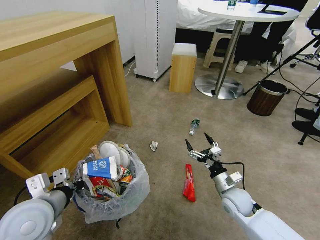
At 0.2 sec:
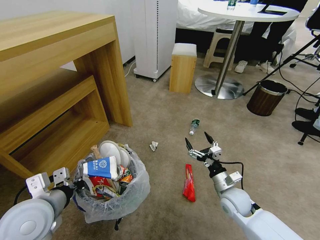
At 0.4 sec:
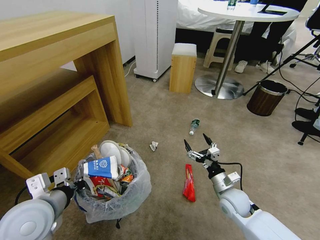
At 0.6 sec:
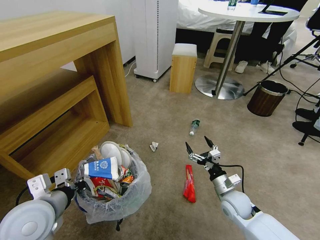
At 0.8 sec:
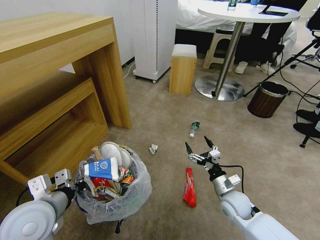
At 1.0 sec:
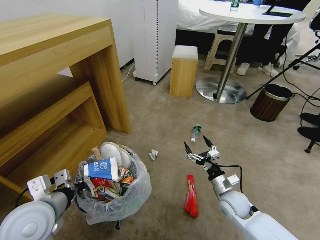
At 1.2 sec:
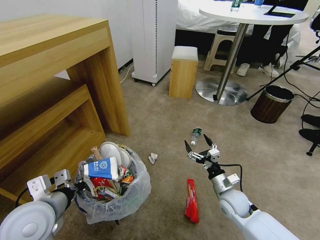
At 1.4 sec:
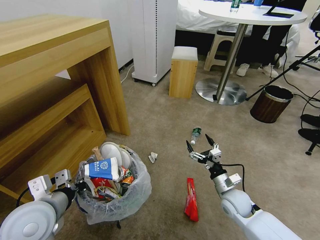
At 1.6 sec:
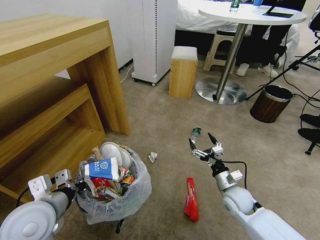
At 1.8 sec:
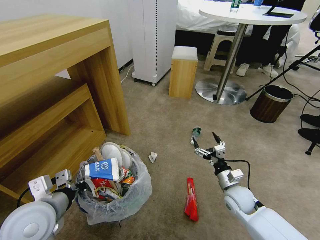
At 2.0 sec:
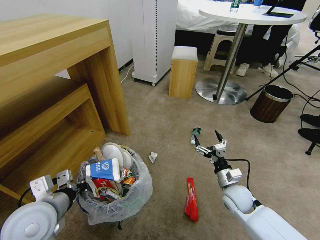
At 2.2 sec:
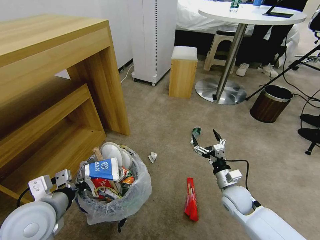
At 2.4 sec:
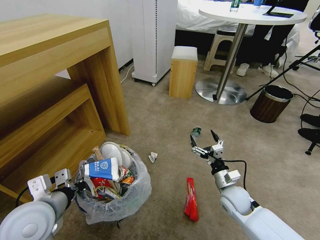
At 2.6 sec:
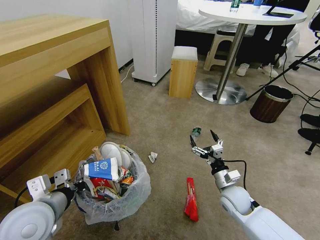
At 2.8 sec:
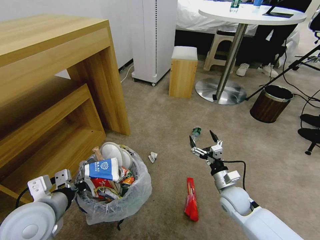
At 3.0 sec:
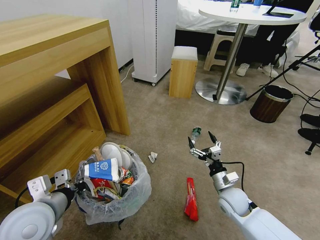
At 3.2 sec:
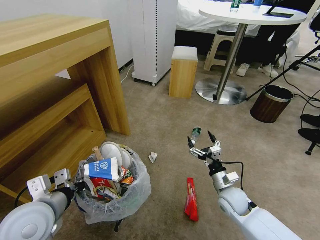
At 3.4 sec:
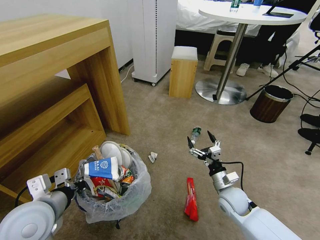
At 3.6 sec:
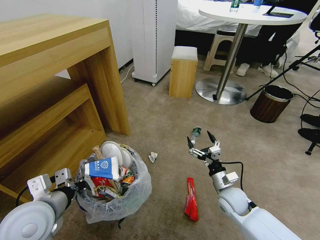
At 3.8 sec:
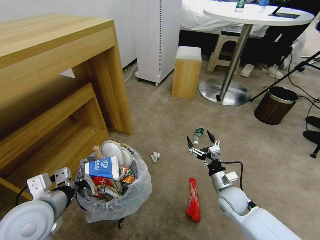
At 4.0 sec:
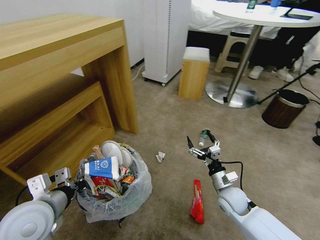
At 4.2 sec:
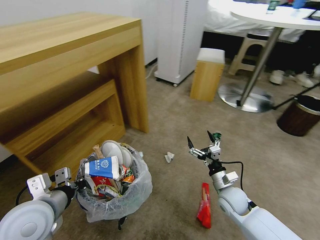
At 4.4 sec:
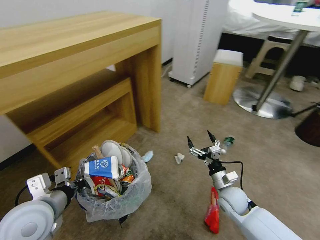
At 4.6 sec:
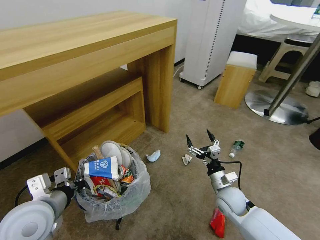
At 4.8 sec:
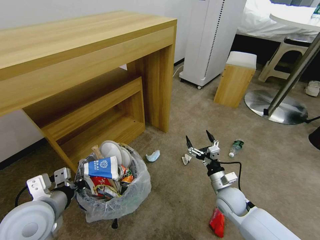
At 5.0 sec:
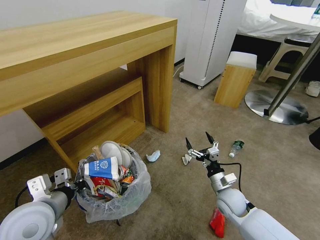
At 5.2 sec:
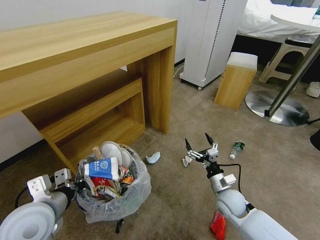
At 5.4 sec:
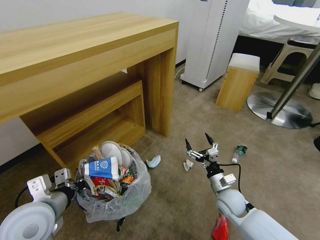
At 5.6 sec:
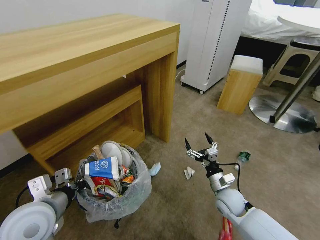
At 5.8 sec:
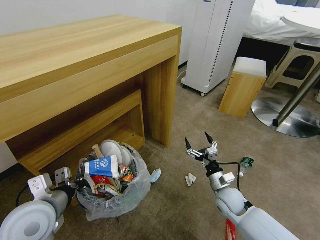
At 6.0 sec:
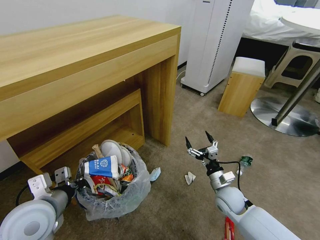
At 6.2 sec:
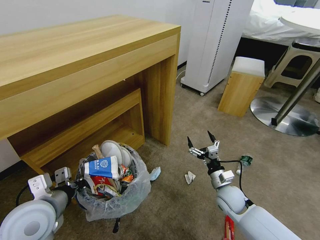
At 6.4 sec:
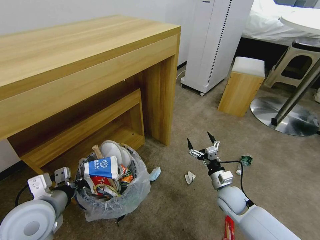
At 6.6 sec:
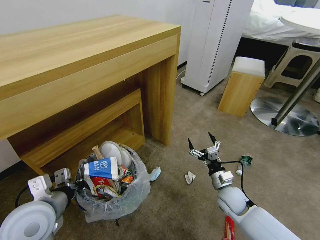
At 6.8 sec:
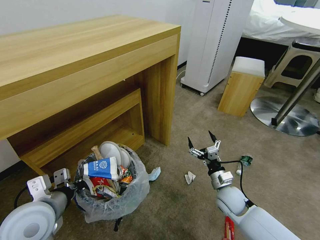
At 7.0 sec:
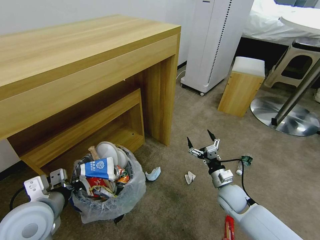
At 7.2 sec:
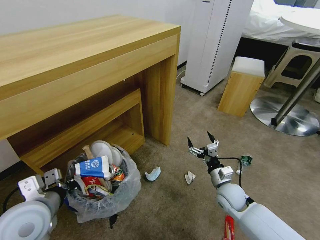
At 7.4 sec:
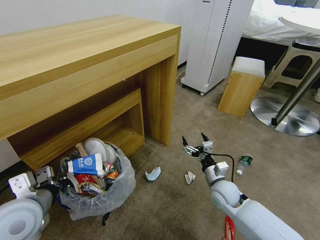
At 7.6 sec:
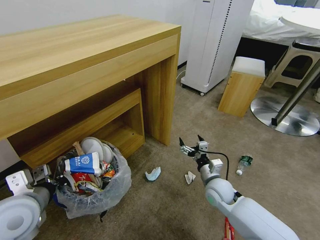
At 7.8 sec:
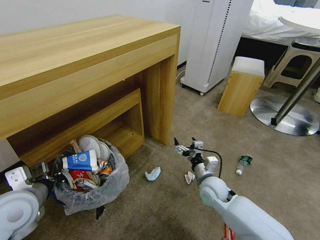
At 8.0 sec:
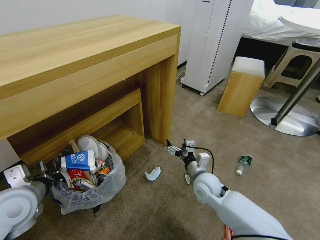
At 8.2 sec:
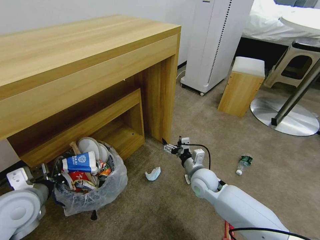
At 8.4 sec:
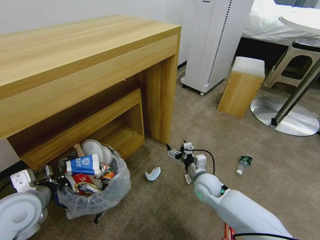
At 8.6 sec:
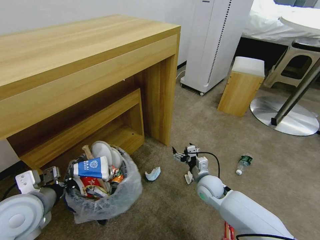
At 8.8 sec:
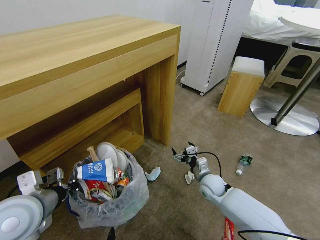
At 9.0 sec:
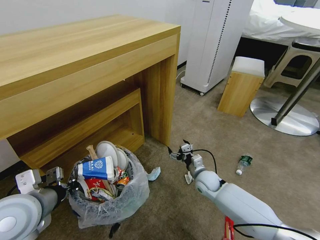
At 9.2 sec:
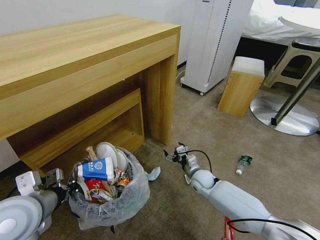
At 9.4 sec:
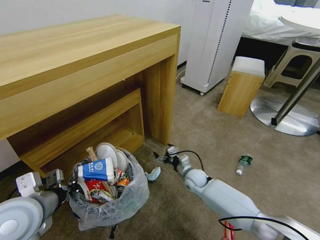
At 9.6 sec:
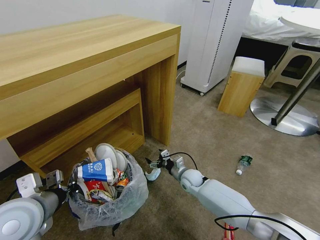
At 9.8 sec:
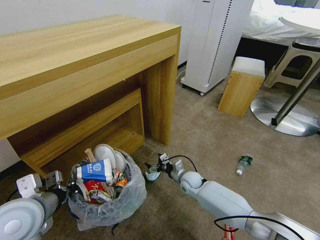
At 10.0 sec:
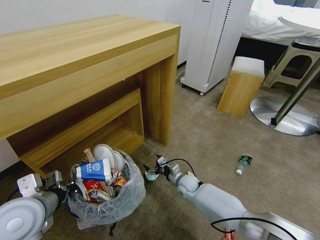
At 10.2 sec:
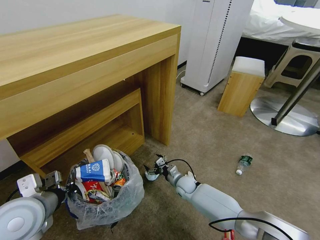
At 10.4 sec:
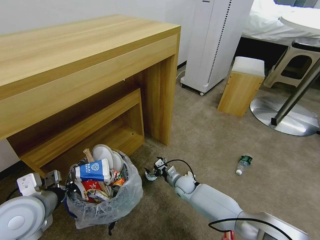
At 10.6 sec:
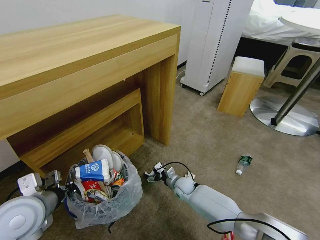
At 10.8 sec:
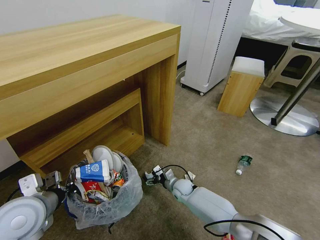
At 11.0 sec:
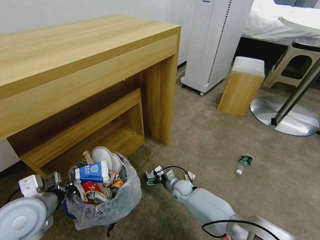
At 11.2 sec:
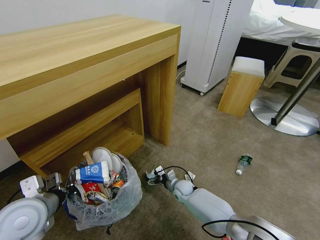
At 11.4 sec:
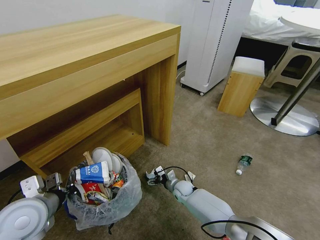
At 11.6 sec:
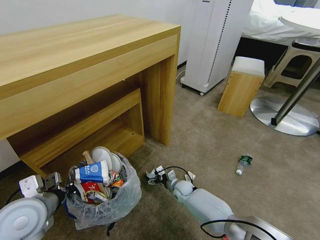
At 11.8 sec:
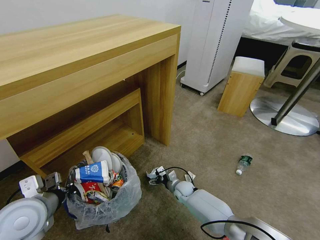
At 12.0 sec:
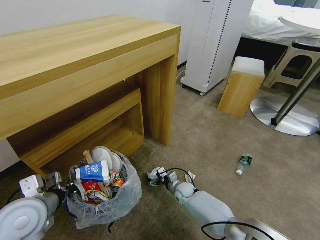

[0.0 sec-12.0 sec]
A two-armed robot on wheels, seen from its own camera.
Task of the whole recording: Pick up the trash bin and place the garbage on the floor into it.
1.6 sec to 3.0 sec: The grippers stay close to where they were, moving slightly.
6.0 sec to 7.6 sec: The grippers move only a little.
7.6 sec to 9.0 sec: The right gripper heads forward and downward, covering some 10 cm.
9.0 sec to 10.4 sec: The right gripper travels to the left and downward by about 10 cm.
10.4 sec to 12.0 sec: The right gripper changes place by some 5 cm.

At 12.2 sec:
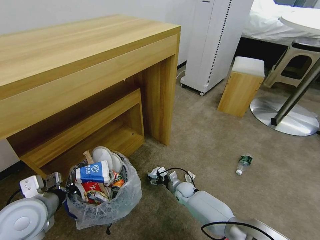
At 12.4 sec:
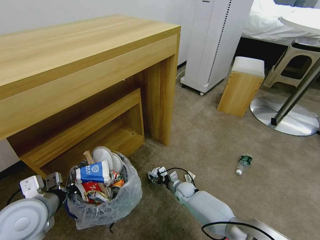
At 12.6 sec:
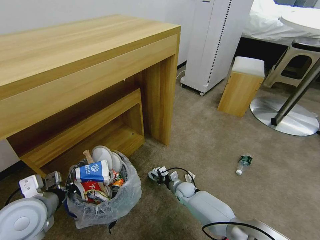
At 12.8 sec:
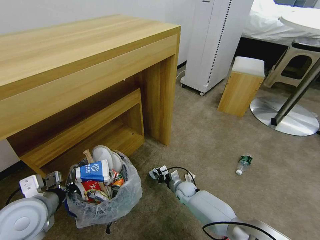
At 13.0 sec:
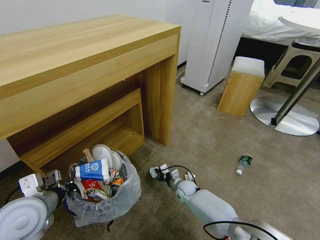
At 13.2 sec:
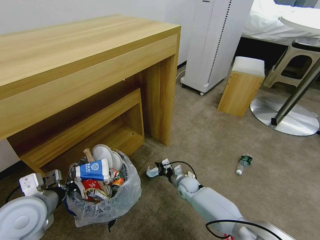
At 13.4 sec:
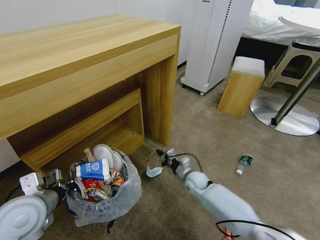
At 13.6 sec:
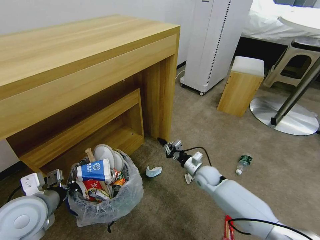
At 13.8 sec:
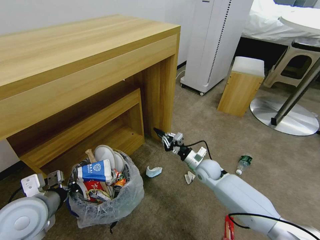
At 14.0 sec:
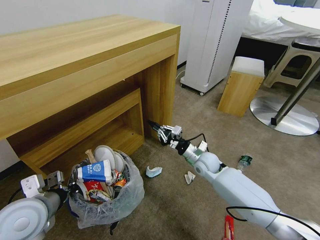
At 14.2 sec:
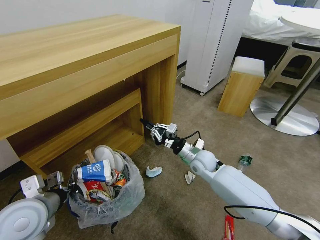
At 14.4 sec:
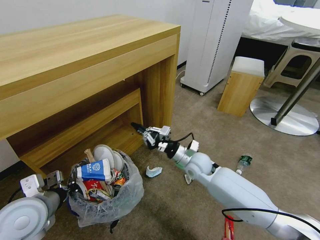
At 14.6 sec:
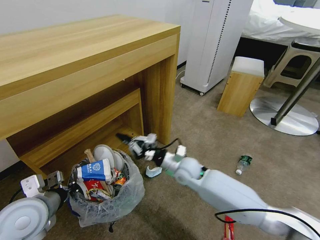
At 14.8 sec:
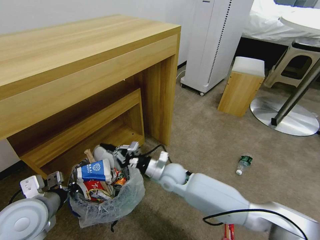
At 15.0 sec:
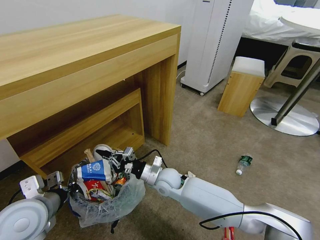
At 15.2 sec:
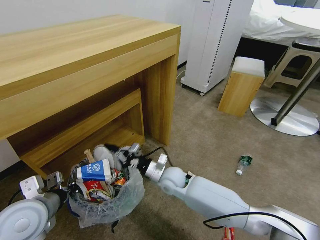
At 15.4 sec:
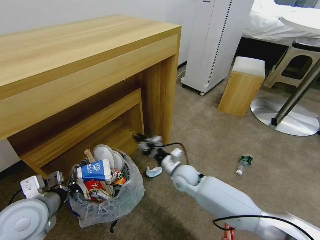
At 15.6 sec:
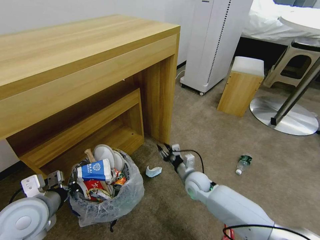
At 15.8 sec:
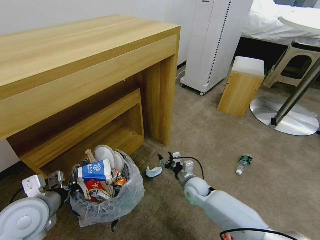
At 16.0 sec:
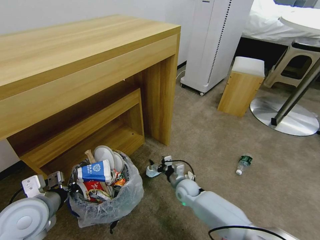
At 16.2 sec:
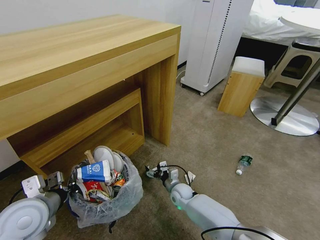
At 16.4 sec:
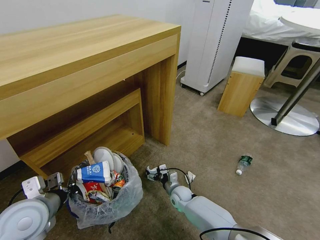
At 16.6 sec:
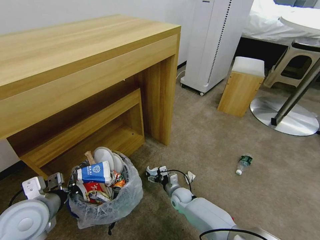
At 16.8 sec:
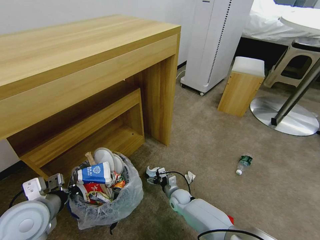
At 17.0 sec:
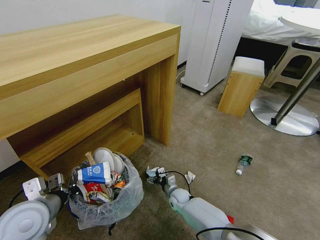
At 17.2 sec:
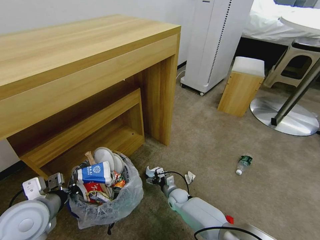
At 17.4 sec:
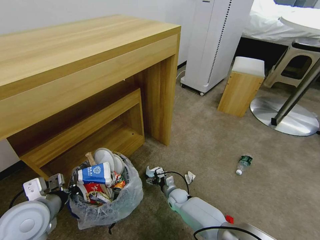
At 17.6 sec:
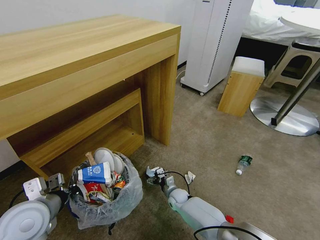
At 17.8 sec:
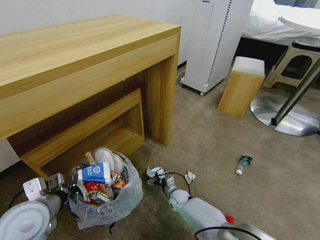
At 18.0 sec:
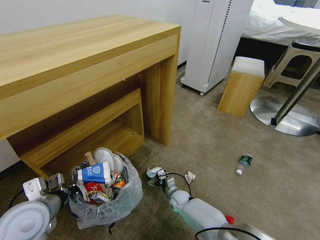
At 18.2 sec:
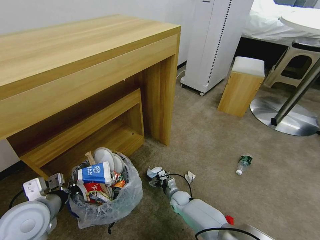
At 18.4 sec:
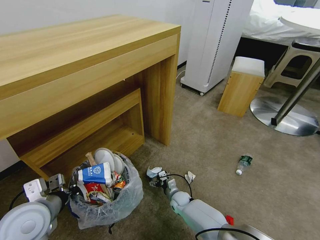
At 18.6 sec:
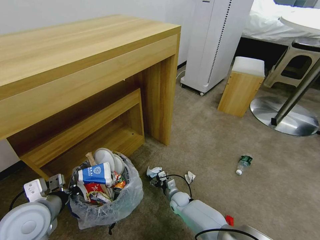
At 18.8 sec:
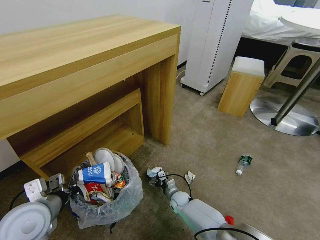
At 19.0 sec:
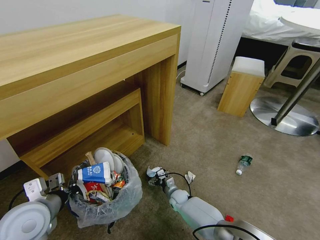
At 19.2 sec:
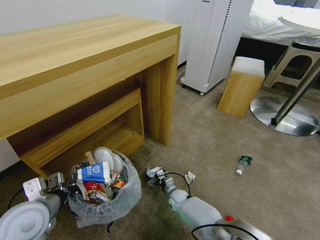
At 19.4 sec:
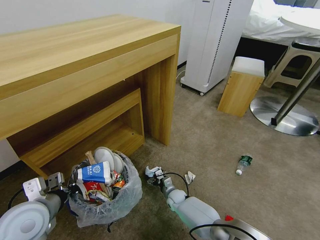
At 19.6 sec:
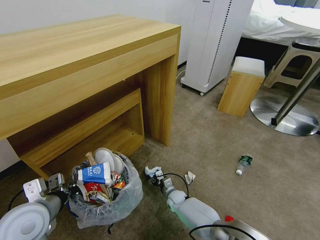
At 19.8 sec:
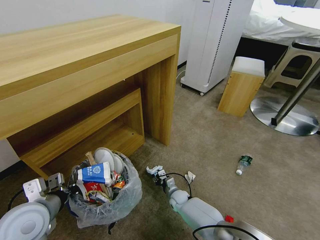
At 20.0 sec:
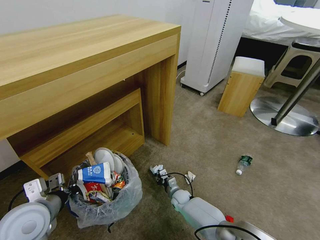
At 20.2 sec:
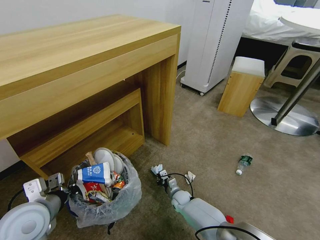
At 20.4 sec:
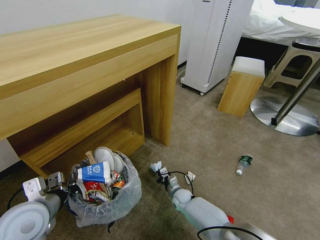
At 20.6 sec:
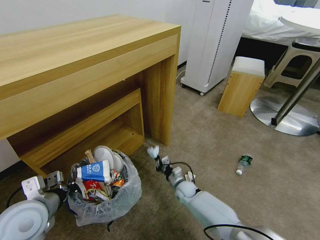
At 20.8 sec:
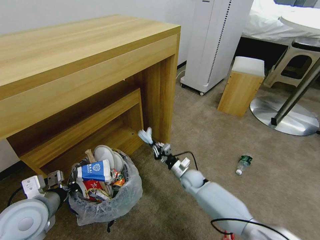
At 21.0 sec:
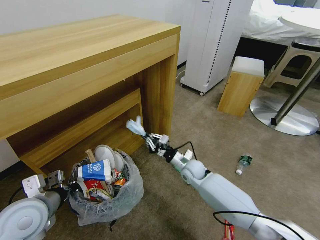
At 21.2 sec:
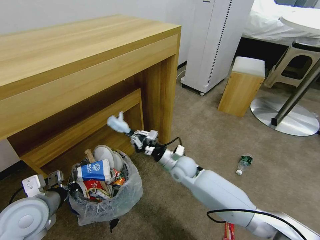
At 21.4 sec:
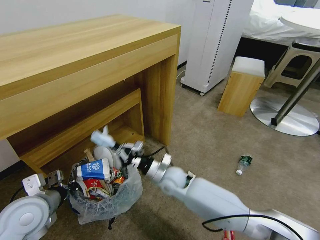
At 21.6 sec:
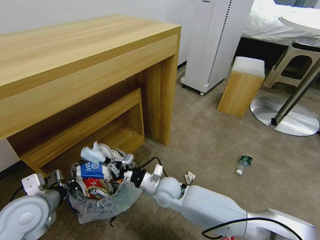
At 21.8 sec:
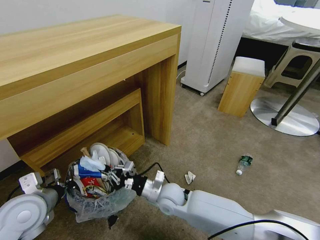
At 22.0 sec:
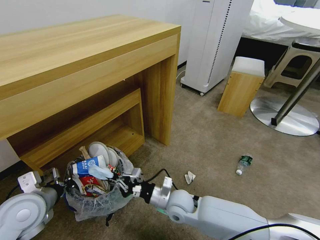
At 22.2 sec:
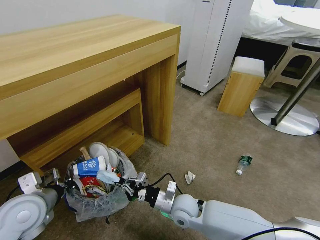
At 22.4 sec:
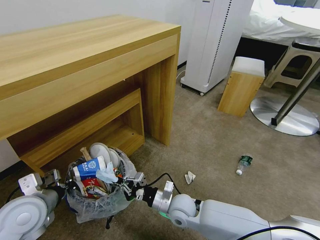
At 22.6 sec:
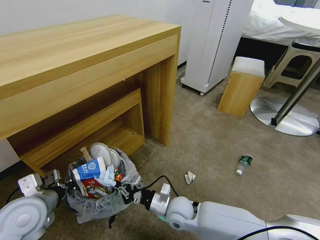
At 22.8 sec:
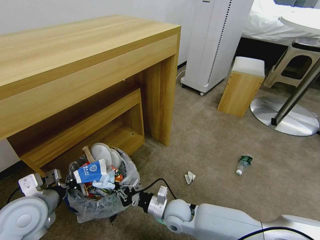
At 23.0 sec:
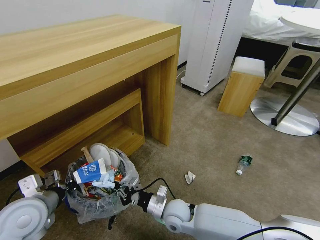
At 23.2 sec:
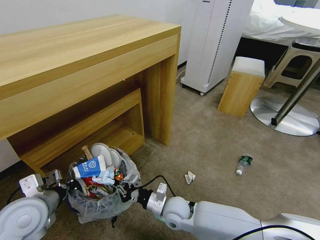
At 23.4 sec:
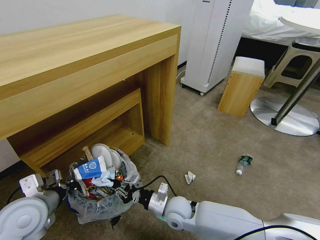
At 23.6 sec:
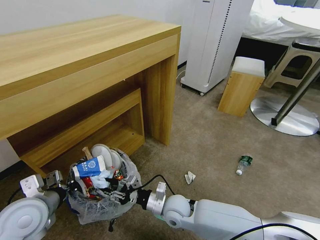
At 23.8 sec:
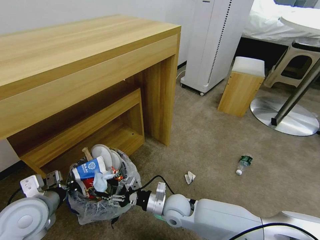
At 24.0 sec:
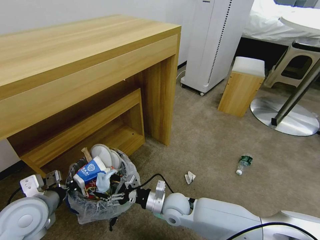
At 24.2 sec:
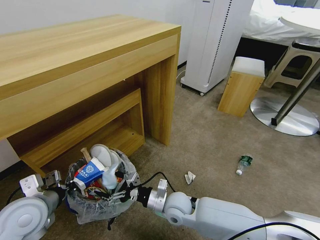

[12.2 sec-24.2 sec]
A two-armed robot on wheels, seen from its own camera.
Task of the whole recording: Pick up the trash bin and place the garbage on the floor into it.
12.2 sec to 13.8 sec: The right gripper is displaced upward and to the right by some 20 cm, and closes up.
13.8 sec to 15.2 sec: The right gripper moves to the left, roughly 15 cm.
15.2 sec to 16.6 sec: The right gripper moves downward, approximately 20 cm, and opens its fingers.
16.6 sec to 18.2 sec: The grippers stay close to where they were, moving slightly.
18.2 sec to 19.8 sec: The right gripper closes up.
19.8 sec to 21.2 sec: The right gripper travels upward by approximately 25 cm, and closes up.
21.2 sec to 22.6 sec: The right gripper is displaced backward by some 15 cm.
22.6 sec to 24.2 sec: The right gripper opens up.
